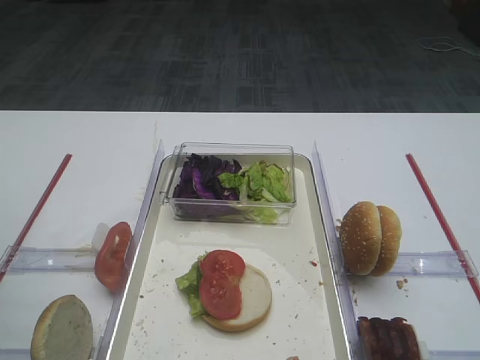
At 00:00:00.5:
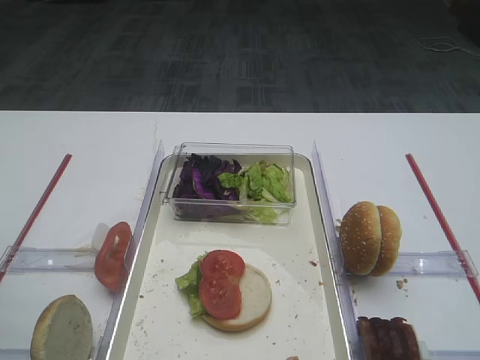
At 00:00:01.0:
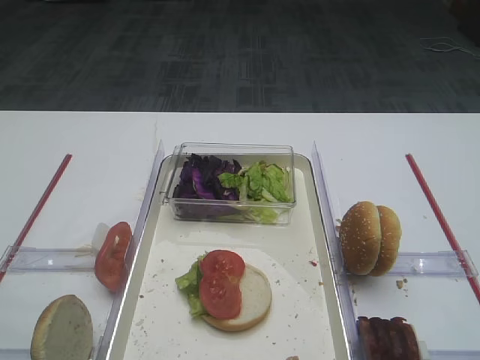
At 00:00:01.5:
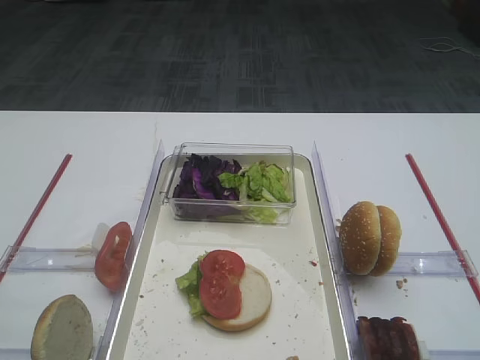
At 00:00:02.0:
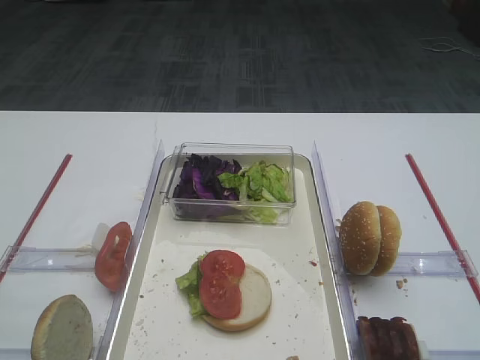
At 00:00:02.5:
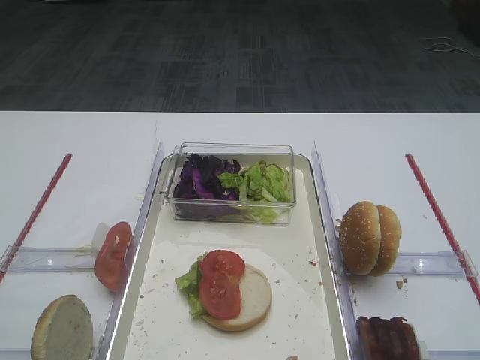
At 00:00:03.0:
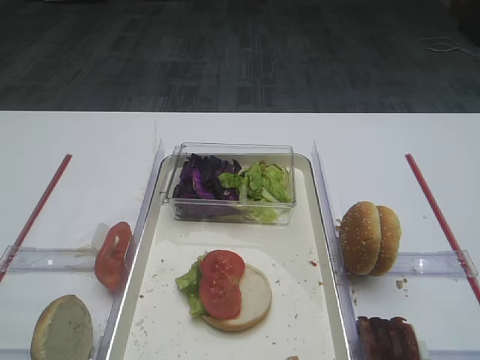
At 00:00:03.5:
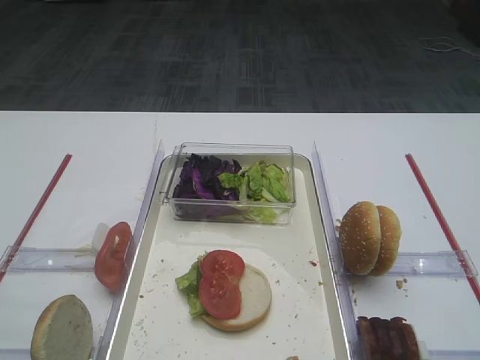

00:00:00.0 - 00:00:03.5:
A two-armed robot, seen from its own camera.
00:00:02.0 - 00:00:03.5: Both grippers stay about where they are.

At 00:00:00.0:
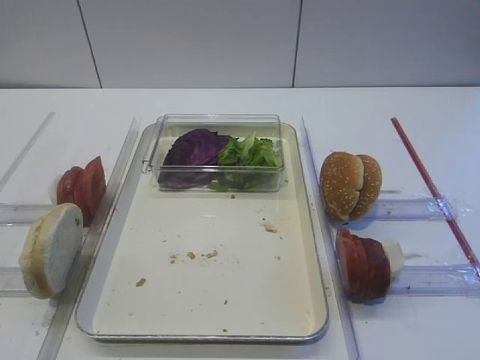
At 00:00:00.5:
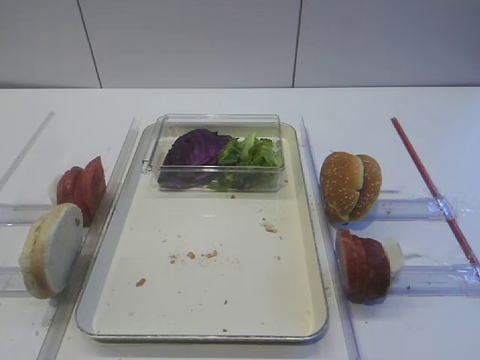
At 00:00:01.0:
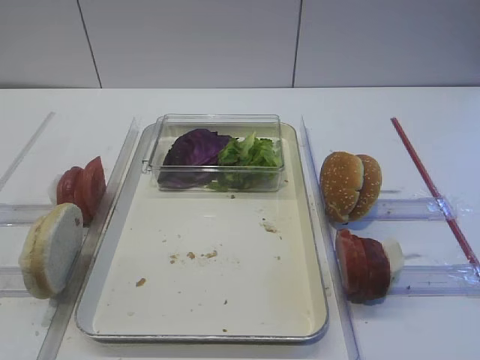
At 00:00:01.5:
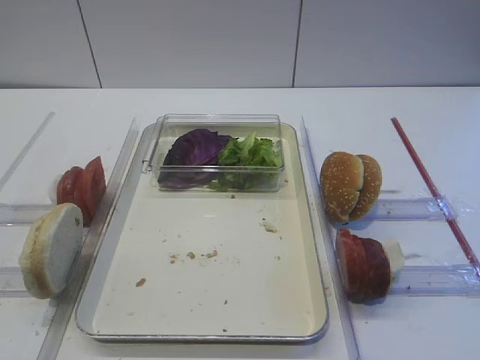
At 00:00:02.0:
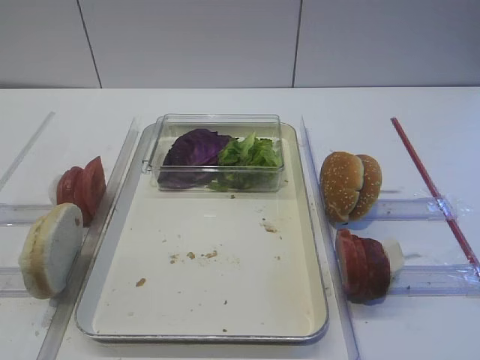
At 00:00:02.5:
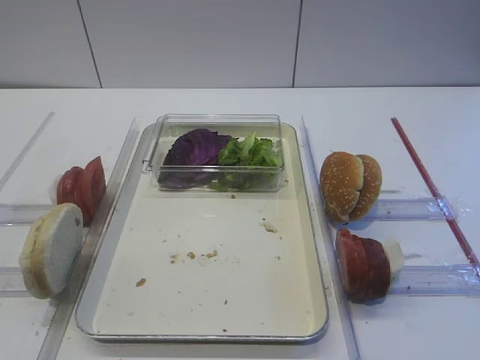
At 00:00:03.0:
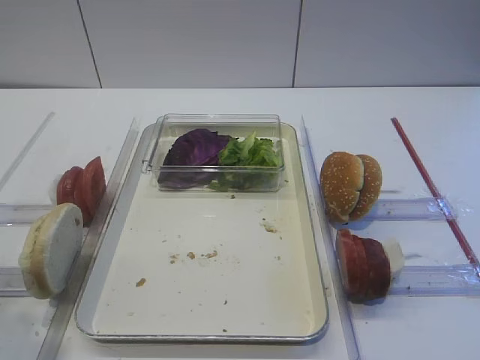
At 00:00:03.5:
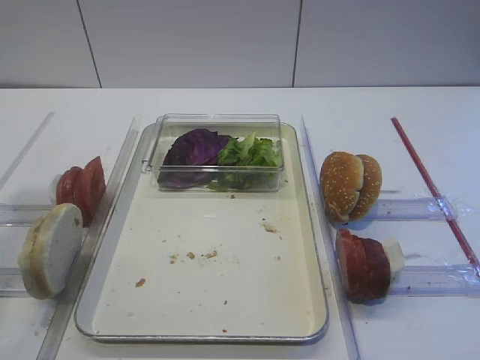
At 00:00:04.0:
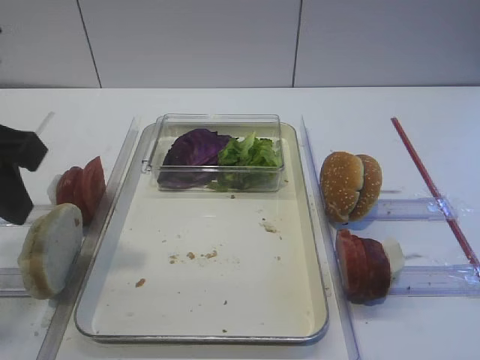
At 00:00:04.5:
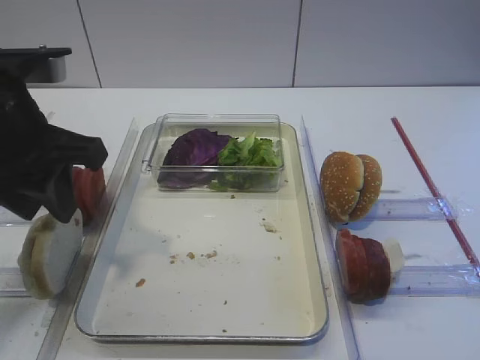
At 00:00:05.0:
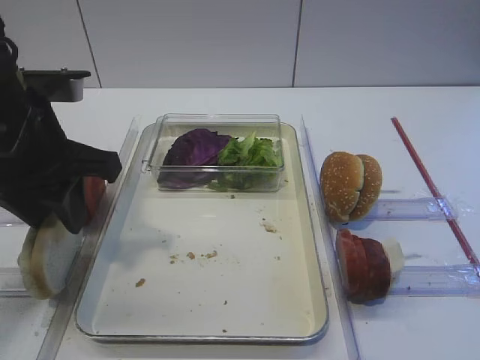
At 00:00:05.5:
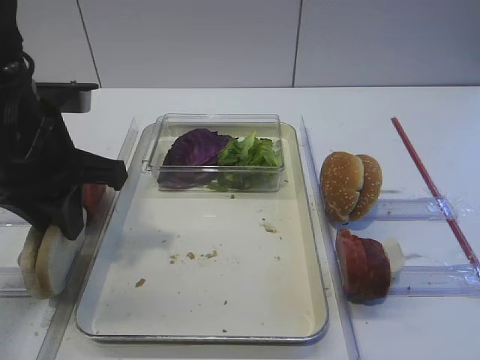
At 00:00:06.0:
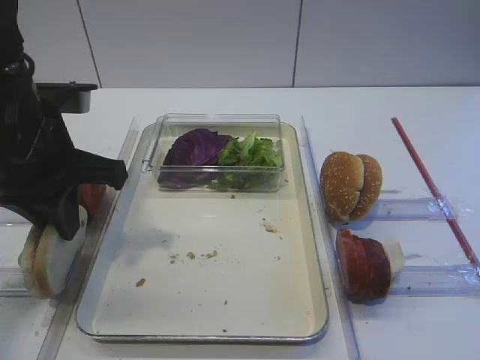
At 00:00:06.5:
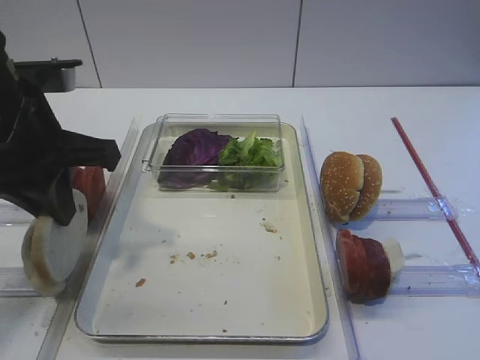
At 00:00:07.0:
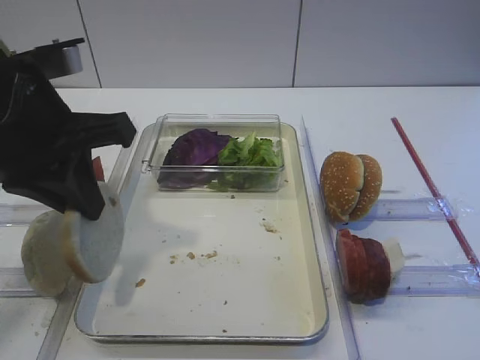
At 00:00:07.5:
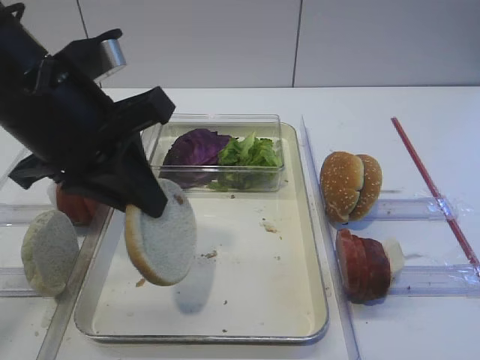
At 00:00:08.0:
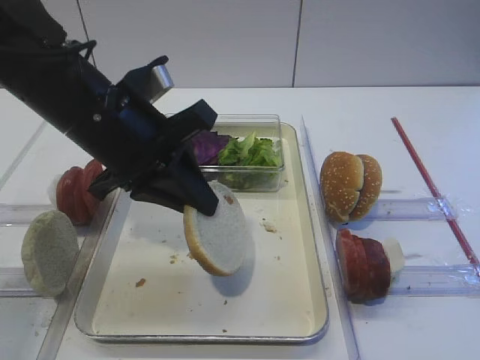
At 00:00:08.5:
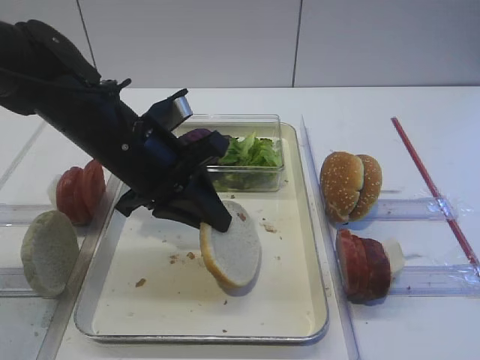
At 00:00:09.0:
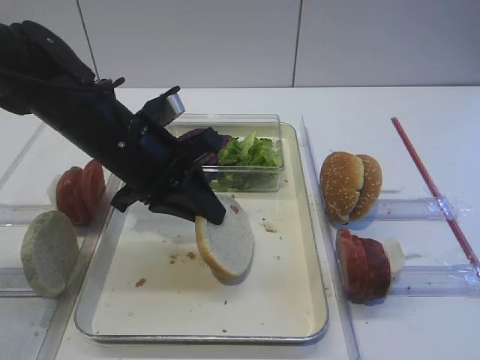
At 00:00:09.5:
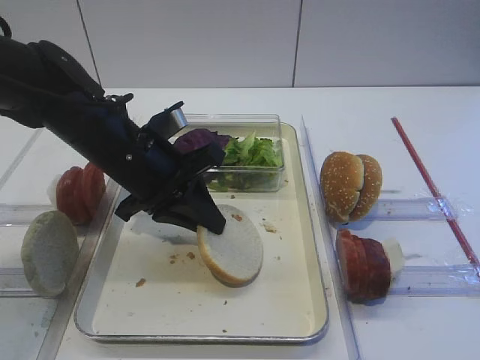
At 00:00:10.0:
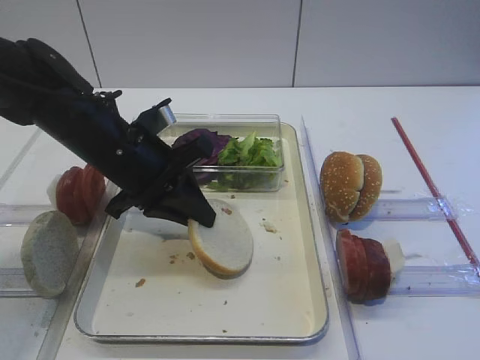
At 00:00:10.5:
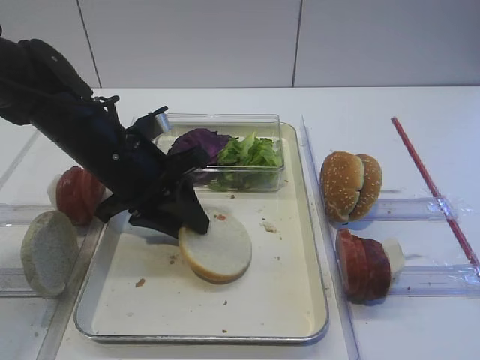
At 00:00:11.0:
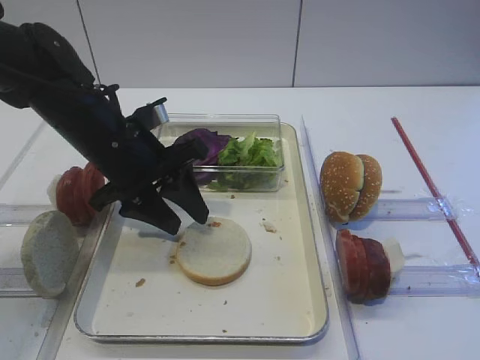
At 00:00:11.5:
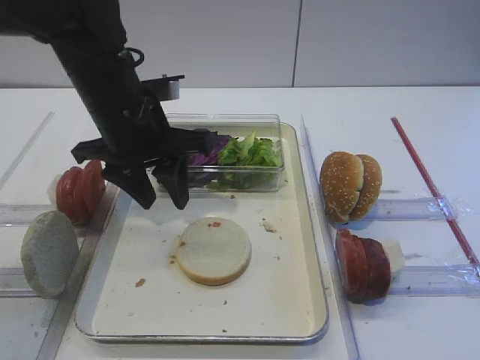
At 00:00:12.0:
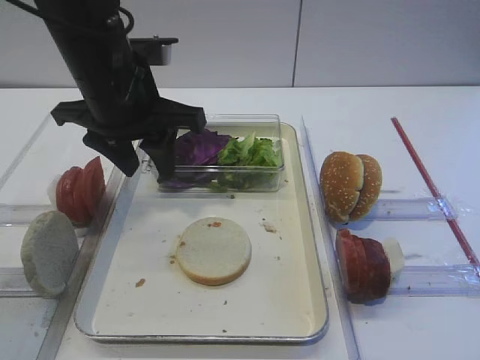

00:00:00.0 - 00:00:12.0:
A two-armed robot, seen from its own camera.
Step, 00:00:00.0 - 00:00:06.5: Pick up the bread slice with the left gripper.
Step, 00:00:07.0 - 00:00:11.5: Place the bread slice on the tray with the left gripper.
00:00:02.0 - 00:00:04.0: The left gripper heads forward, covering some 20 cm.
00:00:04.0 - 00:00:06.0: The left gripper shifts some 10 cm forward and downward, and closes its fingers.
00:00:06.0 - 00:00:08.0: The left gripper moves to the right, approximately 5 cm.
00:00:08.0 - 00:00:10.0: The left gripper heads downward, covering roughly 5 cm.
00:00:10.0 - 00:00:12.0: The left gripper moves upward, approximately 10 cm, and opens its fingers.

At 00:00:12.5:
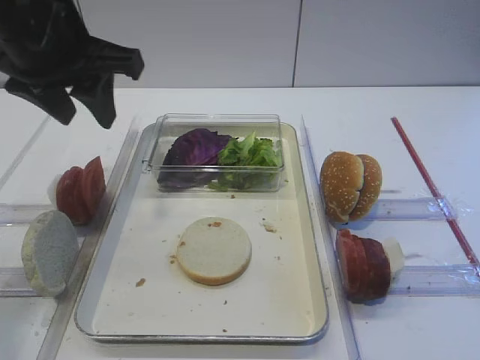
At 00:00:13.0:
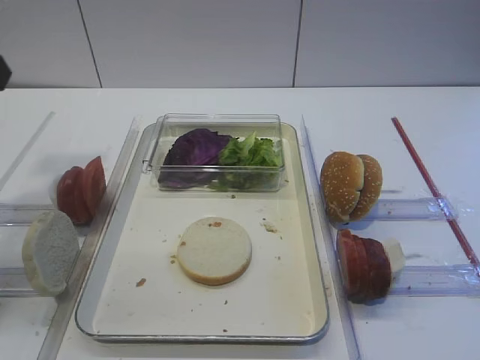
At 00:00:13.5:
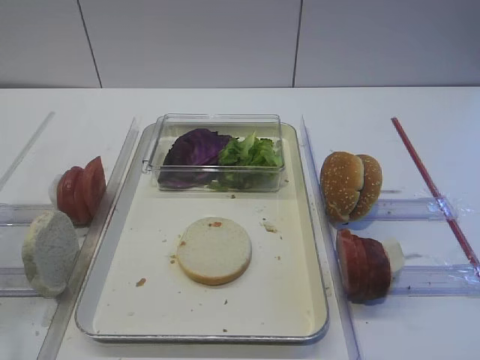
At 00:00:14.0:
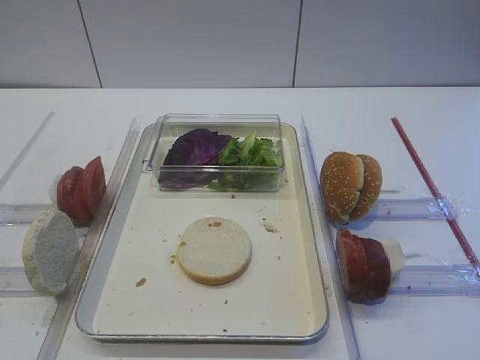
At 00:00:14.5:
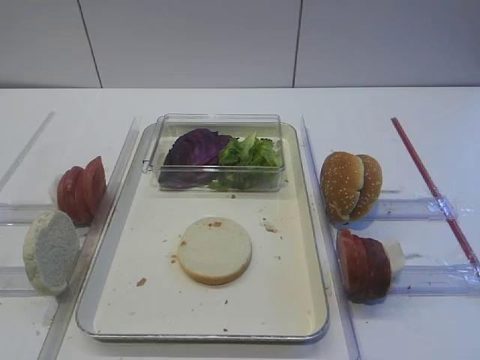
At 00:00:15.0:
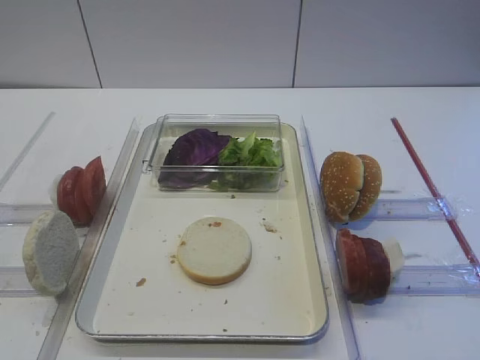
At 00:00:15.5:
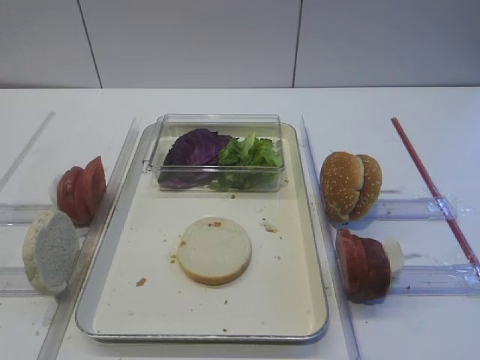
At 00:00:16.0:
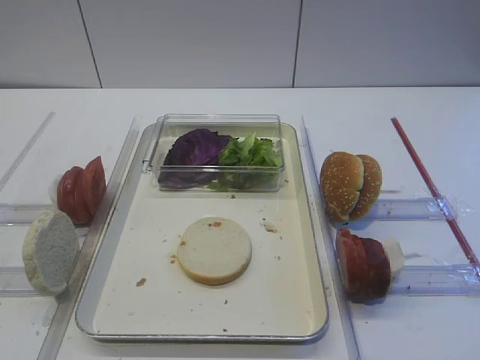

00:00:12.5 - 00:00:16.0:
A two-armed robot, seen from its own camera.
00:00:12.5 - 00:00:14.5: The left gripper goes approximately 30 cm backward.
00:00:14.5 - 00:00:16.0: The two grippers keep their place.
